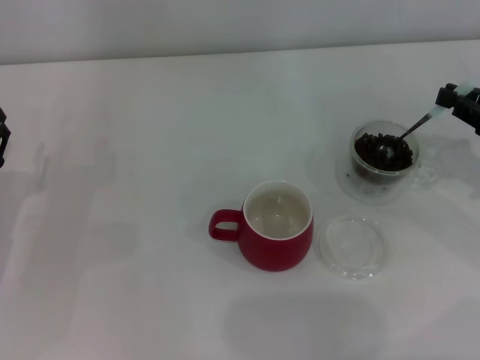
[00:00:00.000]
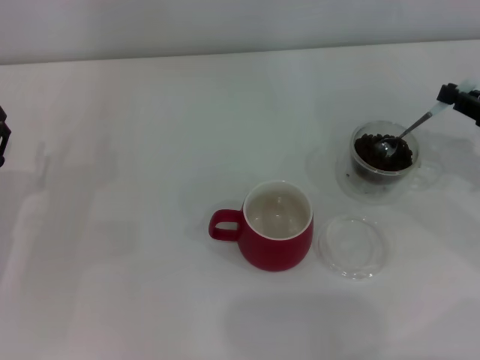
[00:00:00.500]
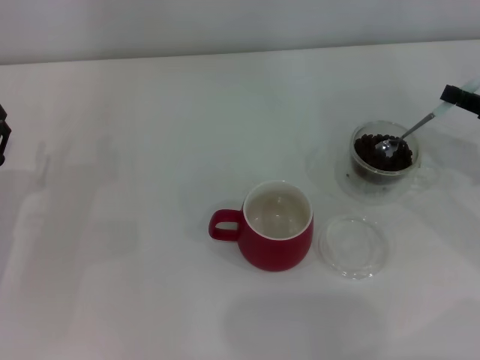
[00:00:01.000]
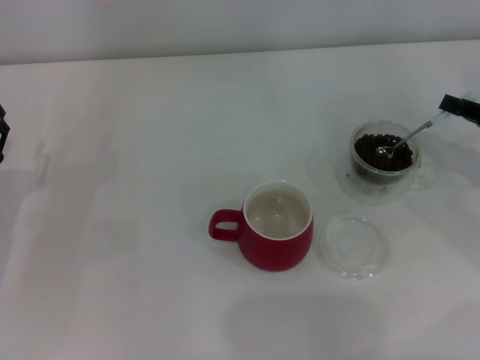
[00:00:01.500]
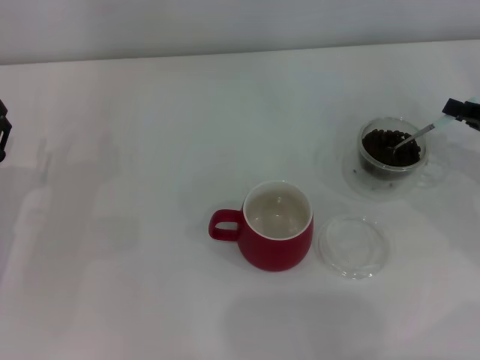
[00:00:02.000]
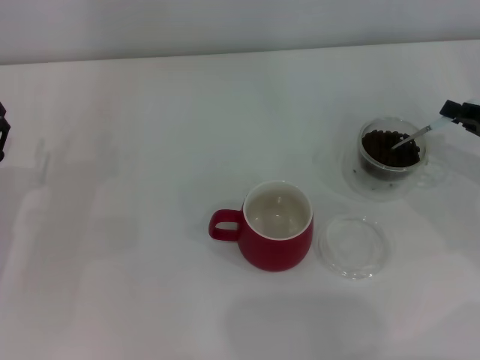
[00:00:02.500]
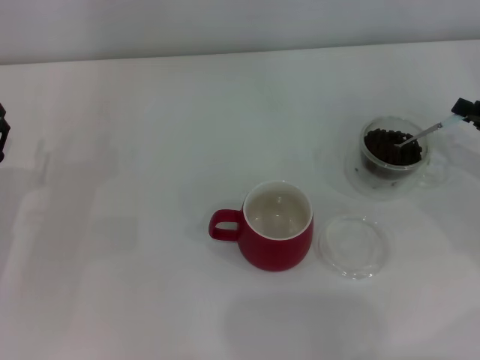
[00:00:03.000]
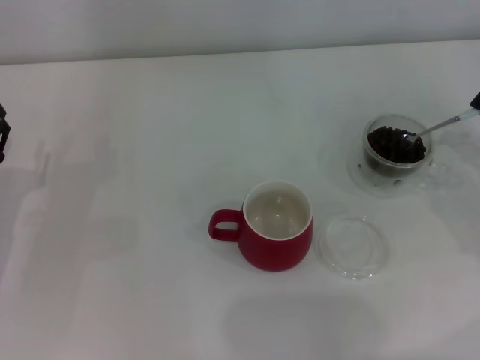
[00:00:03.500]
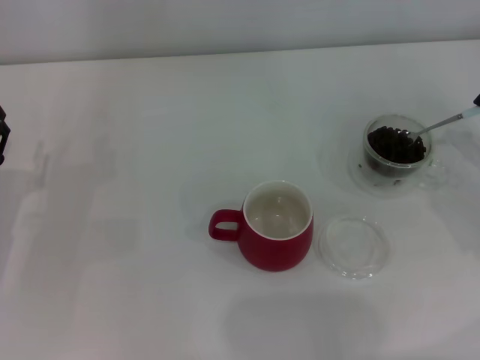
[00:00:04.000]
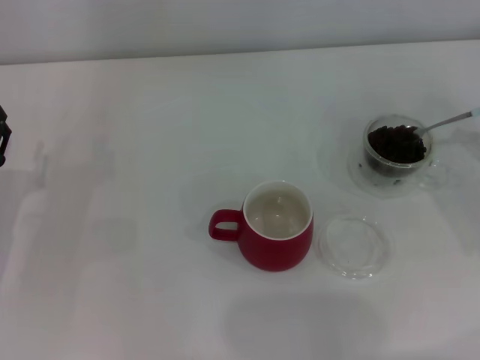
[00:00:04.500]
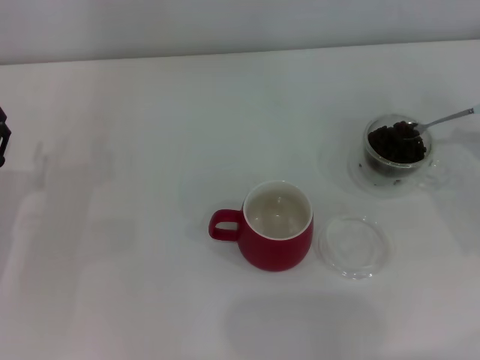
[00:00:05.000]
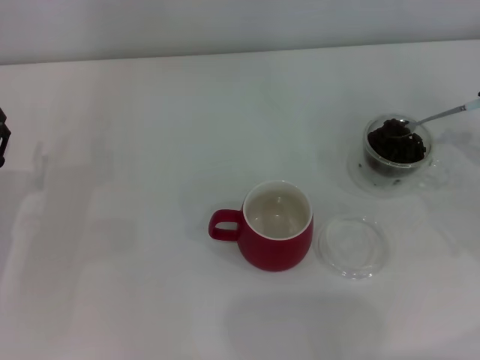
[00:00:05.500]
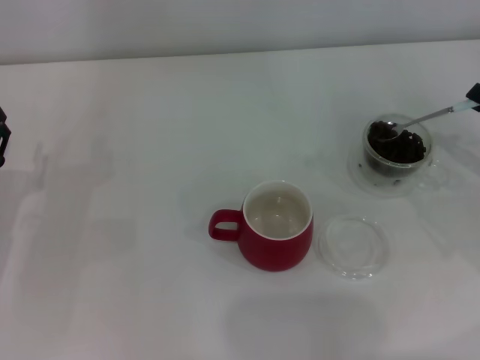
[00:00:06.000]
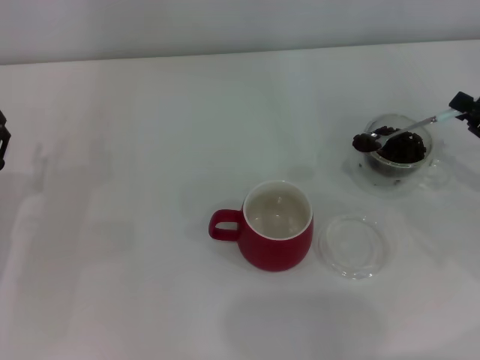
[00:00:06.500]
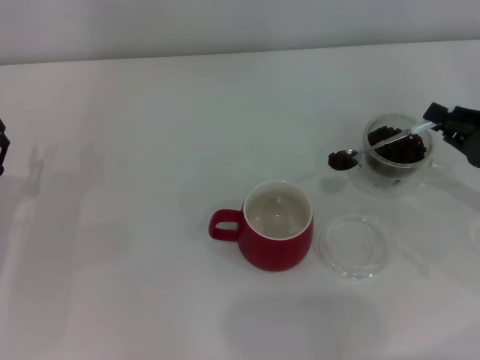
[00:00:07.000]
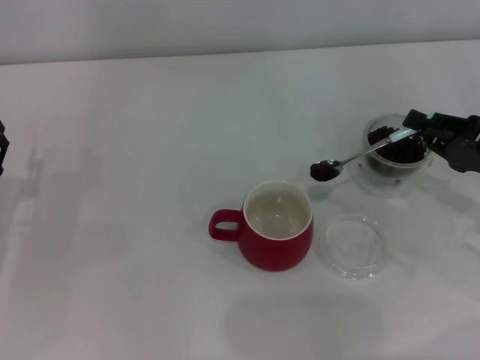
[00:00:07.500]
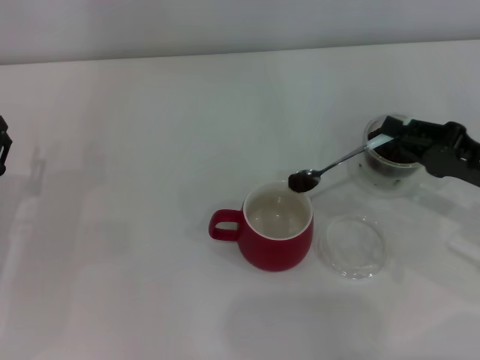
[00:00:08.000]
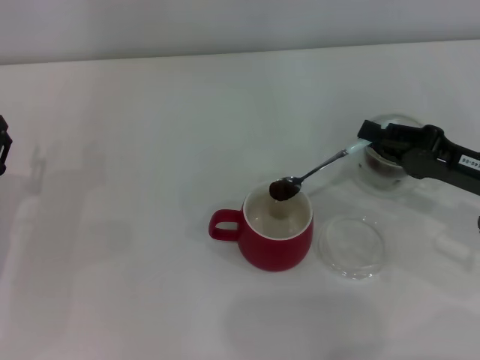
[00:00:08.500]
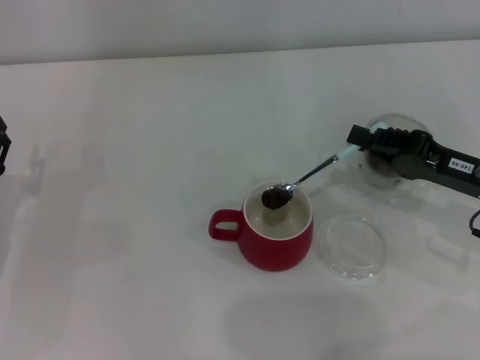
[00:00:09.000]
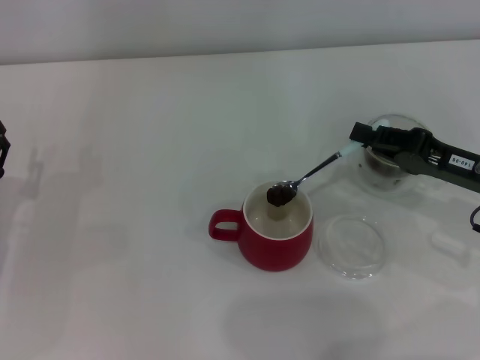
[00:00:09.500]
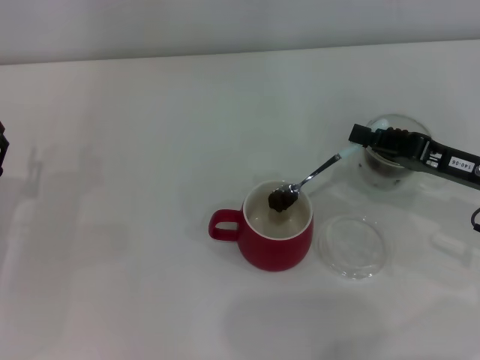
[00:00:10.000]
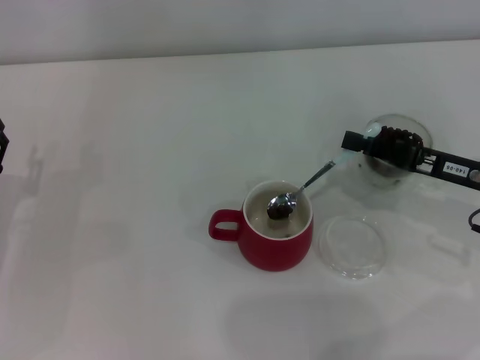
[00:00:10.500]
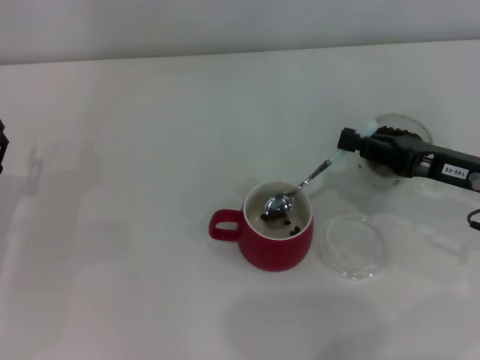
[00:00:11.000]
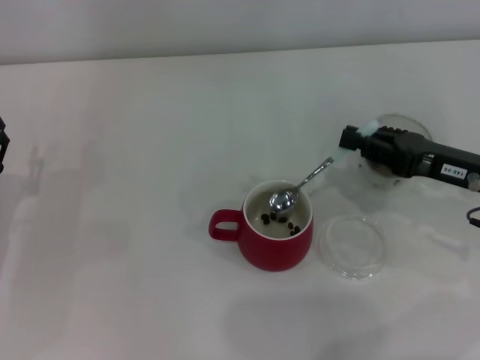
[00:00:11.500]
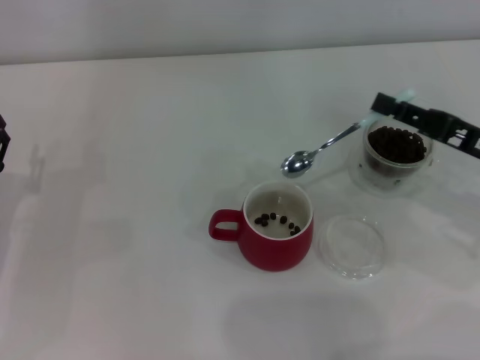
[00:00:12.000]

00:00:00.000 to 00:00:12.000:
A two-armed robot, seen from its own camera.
Task of the whole recording: Use a blue spoon to take out the coffee beans from the glass and pour them into the red cup.
Step, 00:00:00.000 to 00:00:11.500: Scoop a spoonful of beans into the cup with the right gripper.
00:00:02.000 to 00:00:04.000: The grippers move only a little.
00:00:06.000 to 00:00:08.000: The right gripper heads to the left, covering approximately 5 cm.
00:00:08.000 to 00:00:10.000: The grippers stay close to where they were, moving slightly.

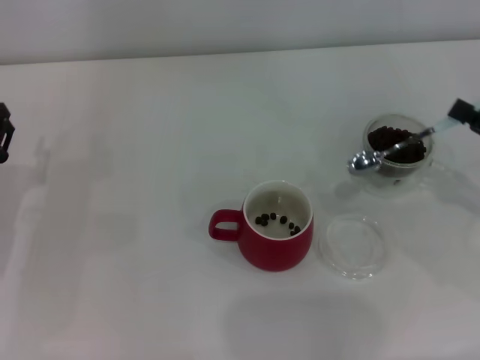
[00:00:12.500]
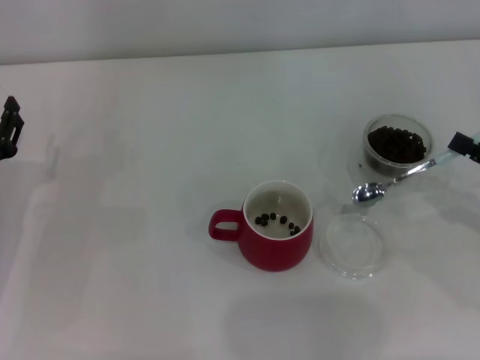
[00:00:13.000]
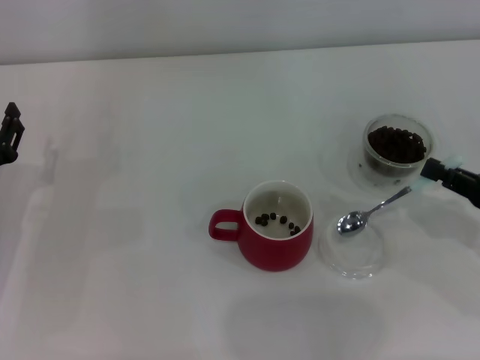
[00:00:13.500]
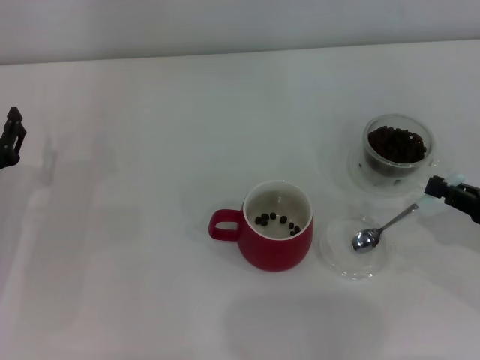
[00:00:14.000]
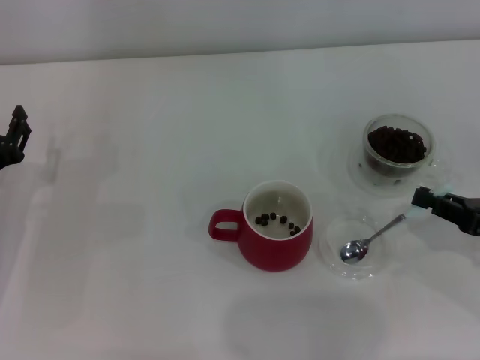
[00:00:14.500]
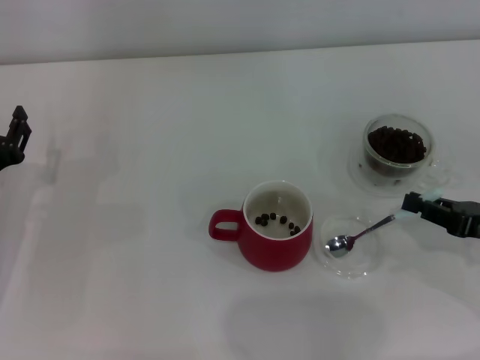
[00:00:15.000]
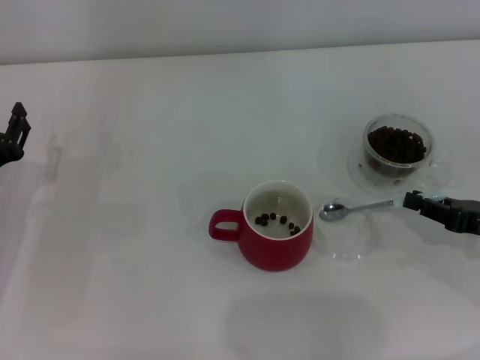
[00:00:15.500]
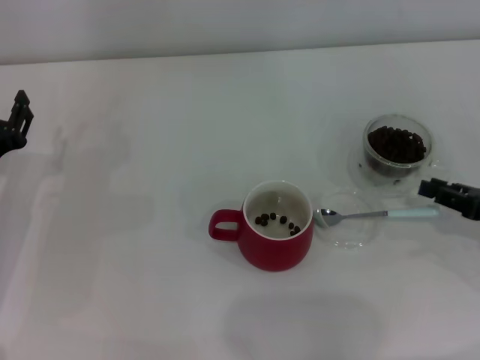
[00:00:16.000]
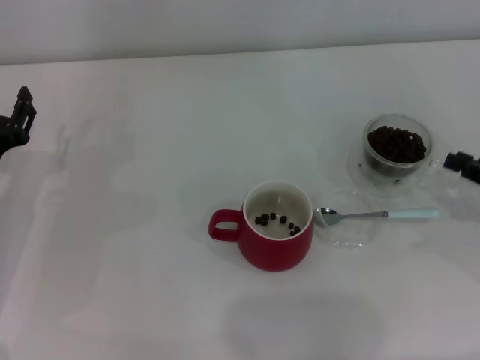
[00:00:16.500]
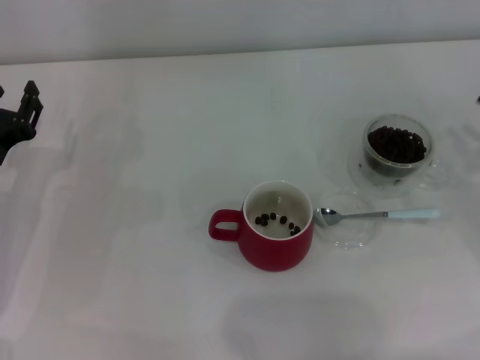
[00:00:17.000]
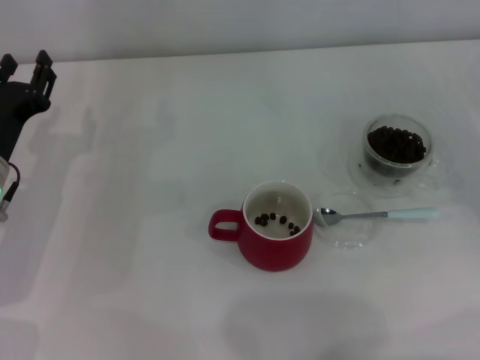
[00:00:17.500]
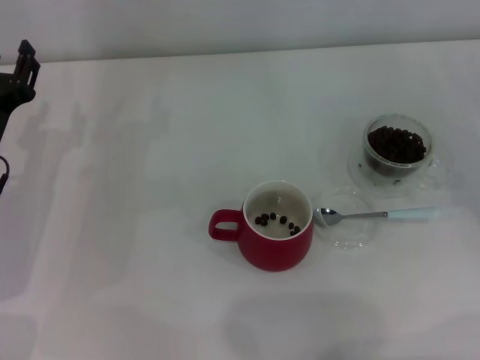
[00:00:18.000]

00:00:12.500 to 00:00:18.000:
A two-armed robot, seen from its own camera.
Task of the whole recording: Use a blue spoon to take out the coffee beans from the glass and pour them into the red cup.
Step, 00:00:12.500 to 00:00:16.000: Place the spoon back in its original place with the right gripper.
00:00:12.500 to 00:00:14.500: The grippers stay close to where they were, moving slightly.
00:00:14.500 to 00:00:16.000: The grippers stay close to where they were, moving slightly.
00:00:16.000 to 00:00:18.000: The right gripper travels forward and to the right by some 10 cm.
